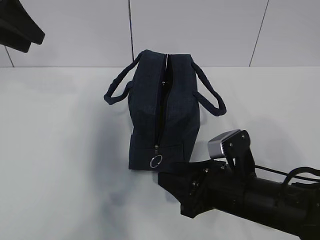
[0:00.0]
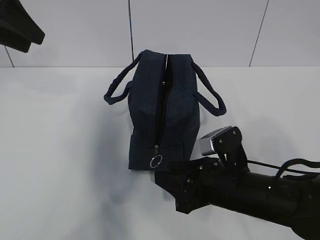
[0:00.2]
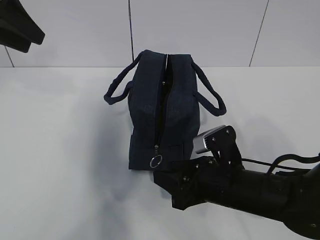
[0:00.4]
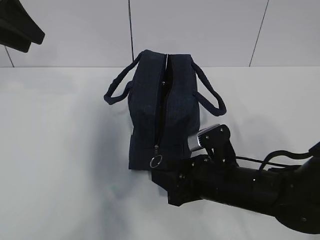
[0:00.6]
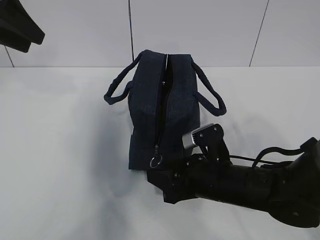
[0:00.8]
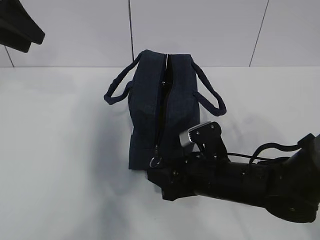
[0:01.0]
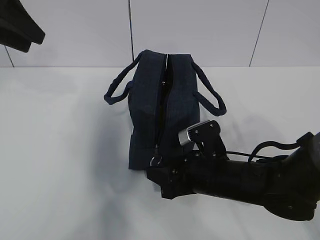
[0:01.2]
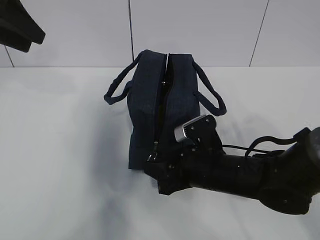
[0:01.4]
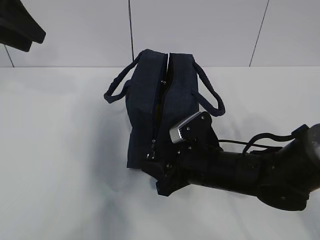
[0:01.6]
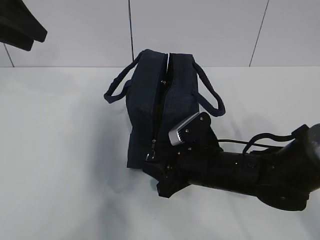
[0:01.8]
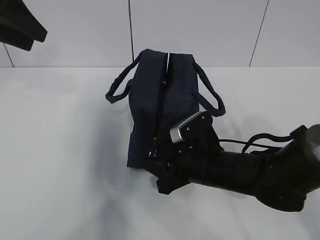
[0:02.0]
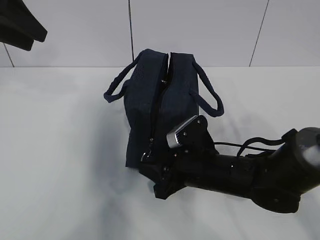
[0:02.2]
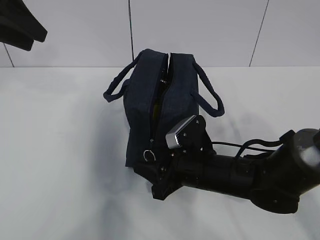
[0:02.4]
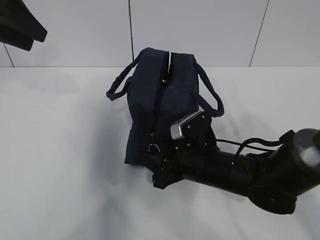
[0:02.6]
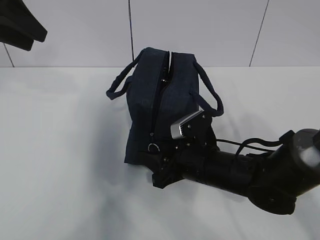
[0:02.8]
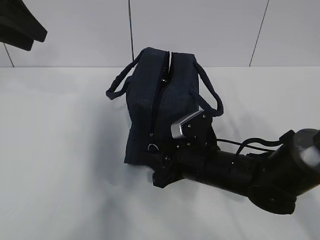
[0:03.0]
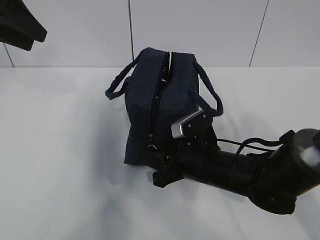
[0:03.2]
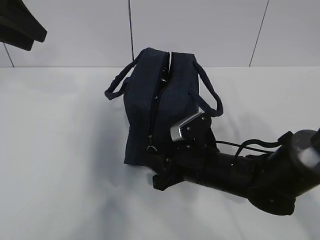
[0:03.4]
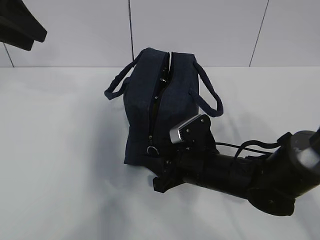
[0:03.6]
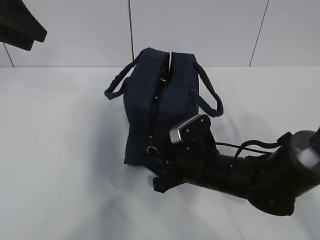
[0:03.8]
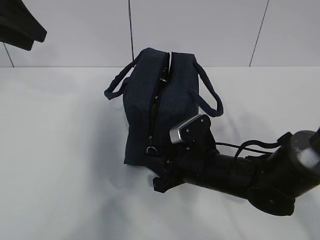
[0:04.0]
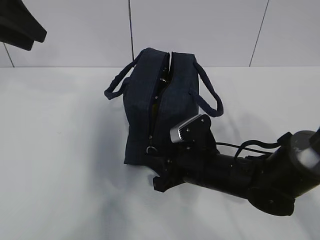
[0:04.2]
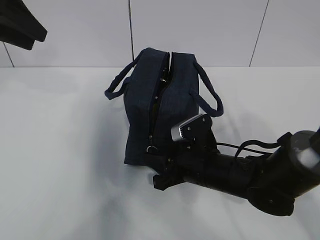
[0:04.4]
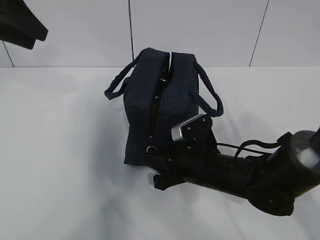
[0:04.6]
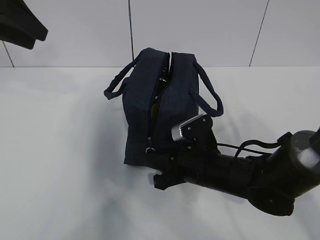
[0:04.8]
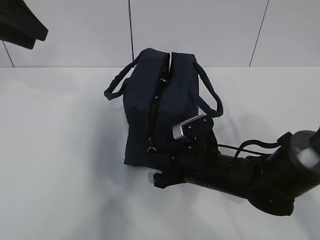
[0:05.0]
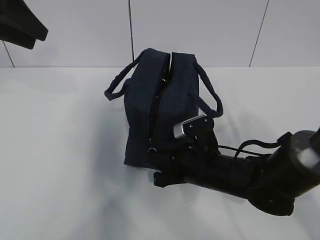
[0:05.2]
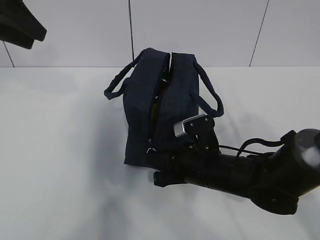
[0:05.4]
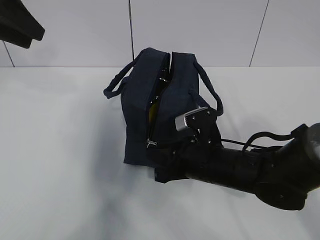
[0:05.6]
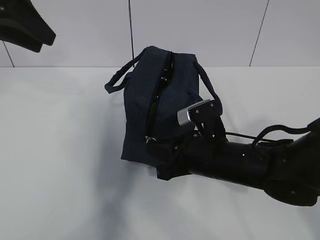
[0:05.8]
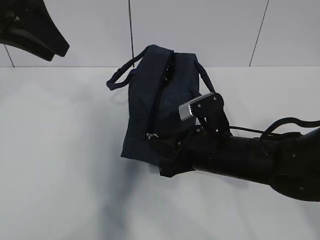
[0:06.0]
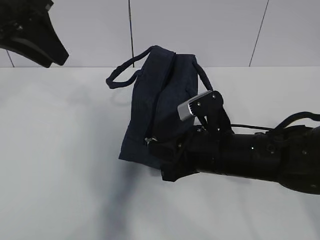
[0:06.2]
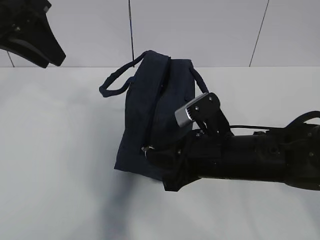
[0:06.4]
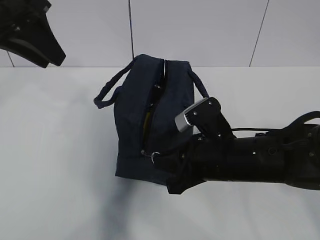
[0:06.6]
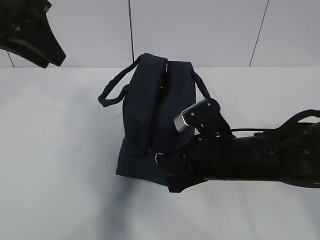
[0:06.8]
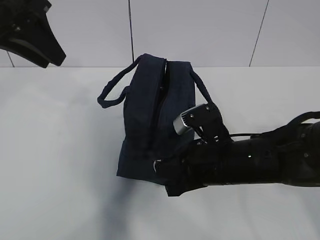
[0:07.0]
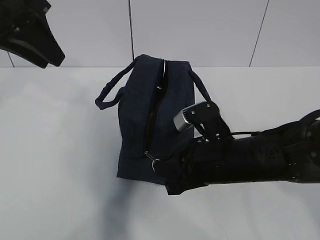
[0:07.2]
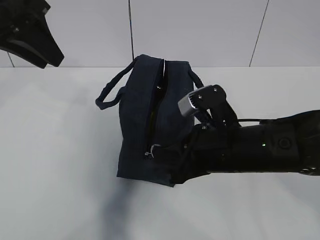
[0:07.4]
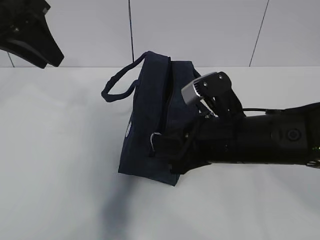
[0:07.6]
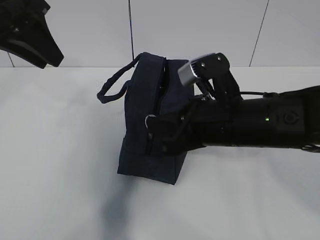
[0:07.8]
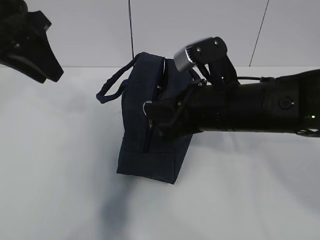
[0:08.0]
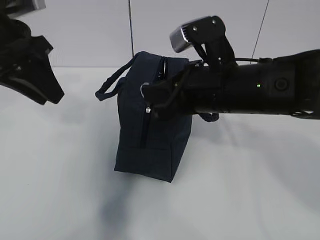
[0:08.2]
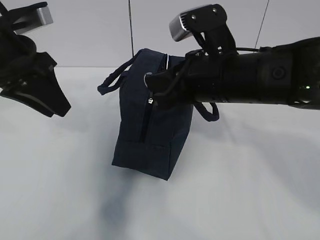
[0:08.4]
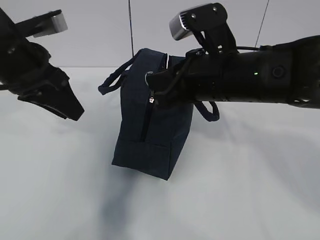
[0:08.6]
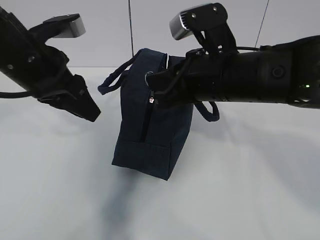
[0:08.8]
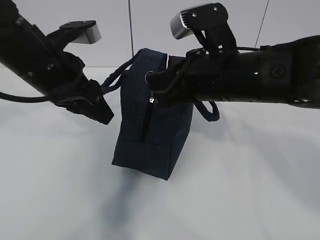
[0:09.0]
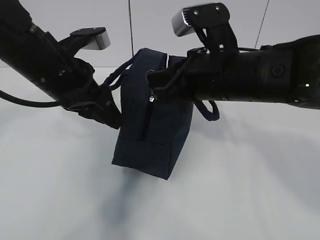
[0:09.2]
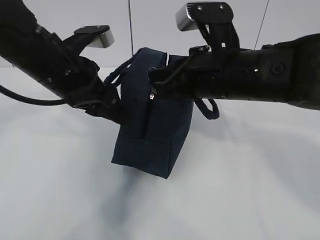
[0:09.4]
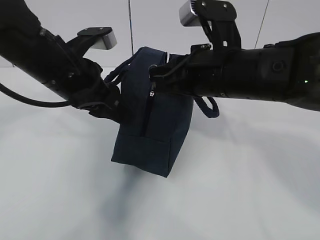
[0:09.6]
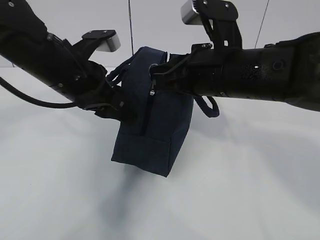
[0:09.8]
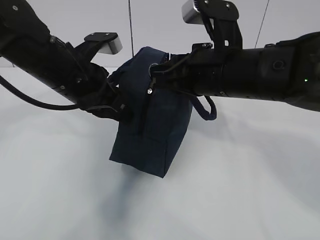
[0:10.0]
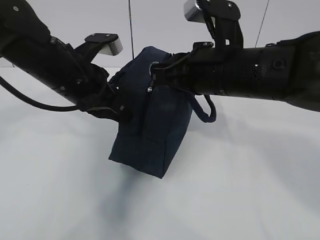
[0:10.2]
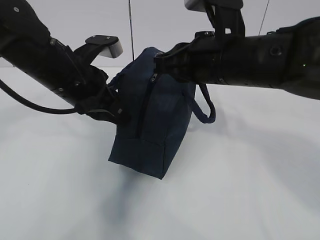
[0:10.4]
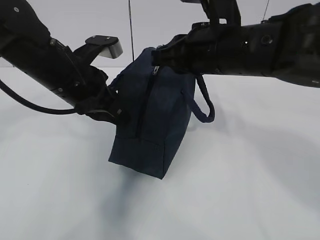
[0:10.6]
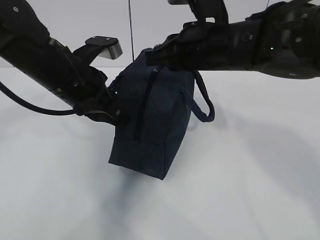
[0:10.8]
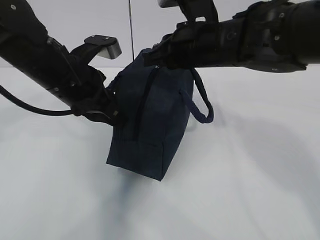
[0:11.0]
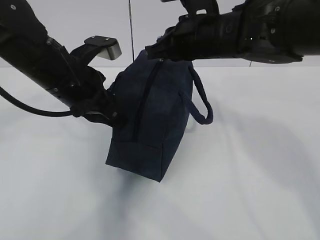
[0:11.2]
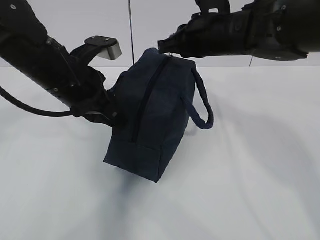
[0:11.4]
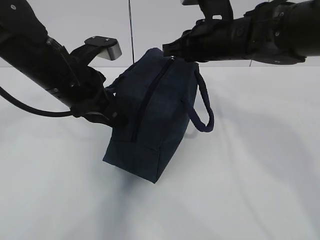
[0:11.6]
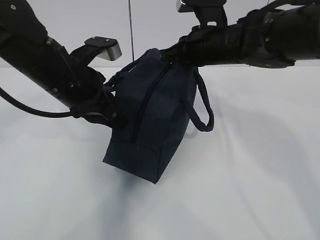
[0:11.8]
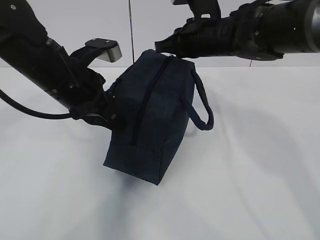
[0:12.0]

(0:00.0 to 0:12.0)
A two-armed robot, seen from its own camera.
Step, 0:02.8 - 0:07.8: Pull the zipper with your right hand.
Step, 0:08.0 - 0:11.0: Grab the lunch bag with your left hand.
0:00.0 - 0:01.6: The right gripper heads forward, covering approximately 5 cm.
0:01.6 - 0:03.0: There are only small adjustments of the grippers.
0:03.0 - 0:04.4: Both grippers stay about where they are.
0:04.4 - 0:06.0: The left gripper moves about 5 cm; the right gripper shifts approximately 5 cm upward, and closes.
0:06.0 - 0:07.6: The right gripper moves upward, approximately 5 cm.
0:07.6 - 0:09.0: The right gripper heads upward, covering approximately 5 cm. Meanwhile the left gripper travels downward and to the right by approximately 10 cm.
0:09.0 - 0:10.4: The left gripper closes.
0:10.4 - 0:12.0: The right gripper shifts approximately 10 cm forward.

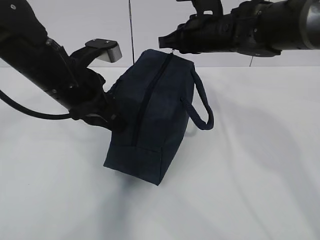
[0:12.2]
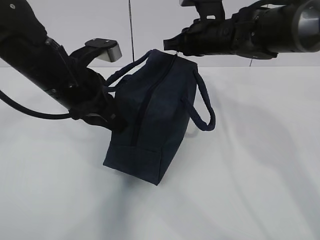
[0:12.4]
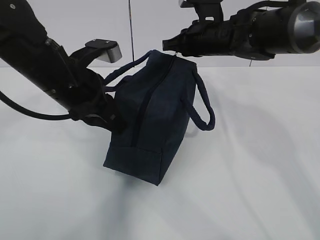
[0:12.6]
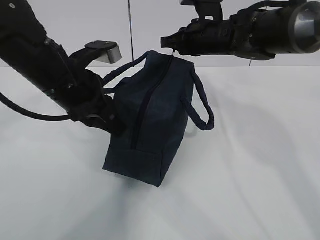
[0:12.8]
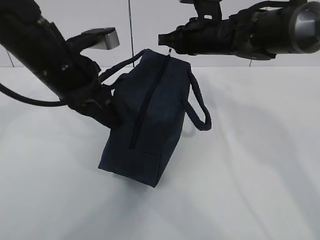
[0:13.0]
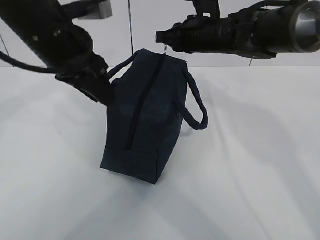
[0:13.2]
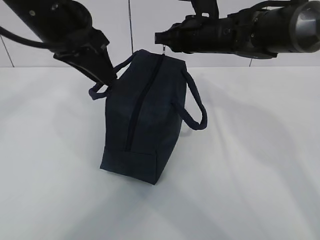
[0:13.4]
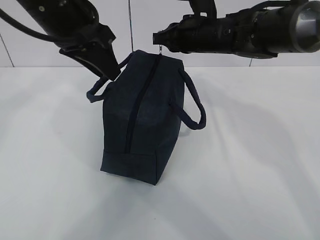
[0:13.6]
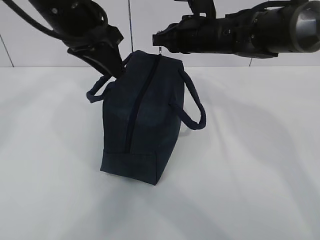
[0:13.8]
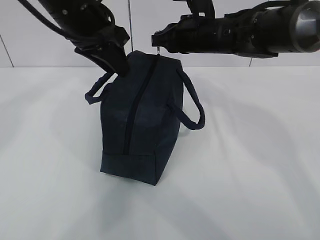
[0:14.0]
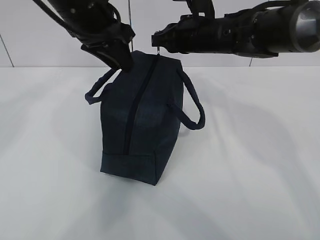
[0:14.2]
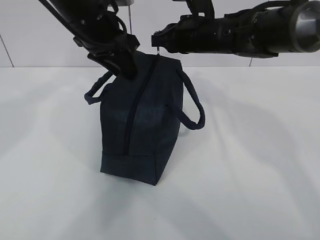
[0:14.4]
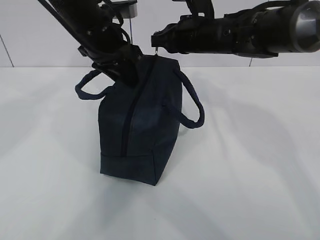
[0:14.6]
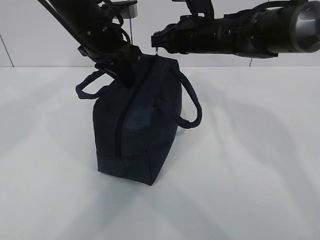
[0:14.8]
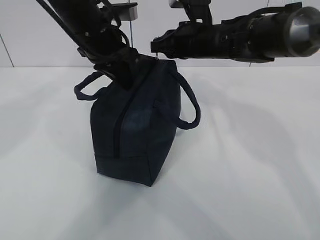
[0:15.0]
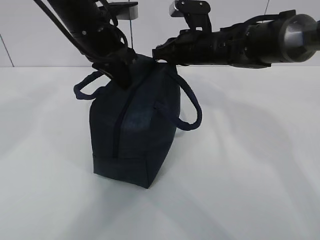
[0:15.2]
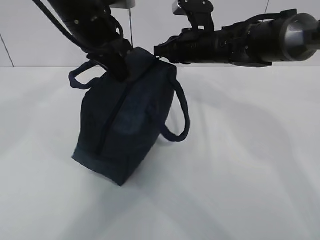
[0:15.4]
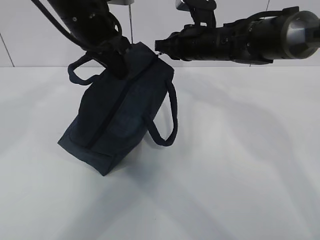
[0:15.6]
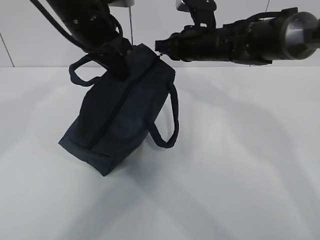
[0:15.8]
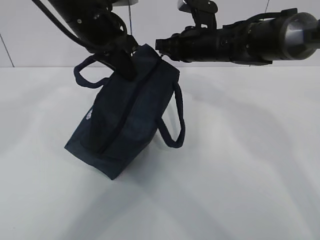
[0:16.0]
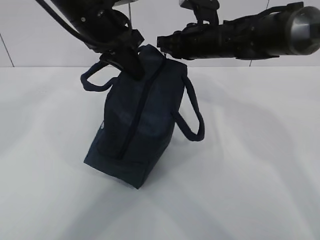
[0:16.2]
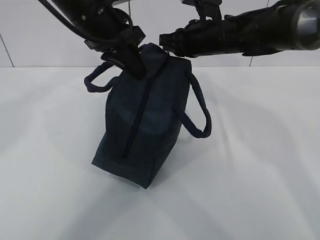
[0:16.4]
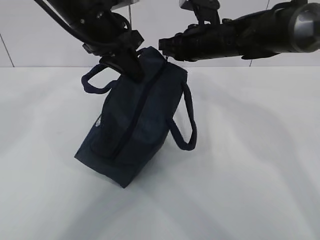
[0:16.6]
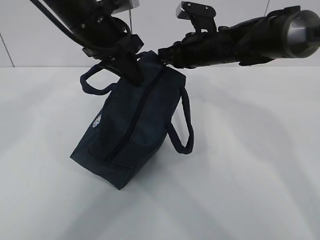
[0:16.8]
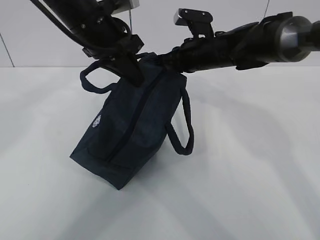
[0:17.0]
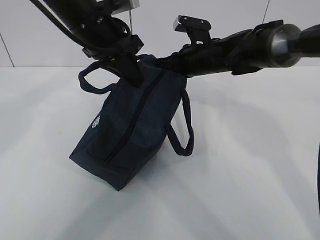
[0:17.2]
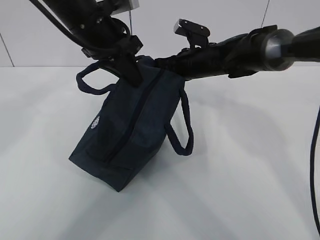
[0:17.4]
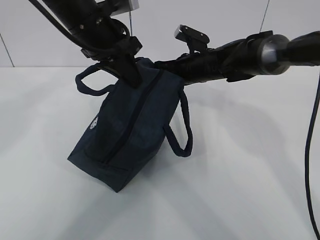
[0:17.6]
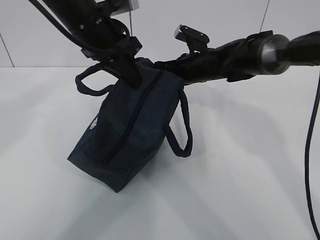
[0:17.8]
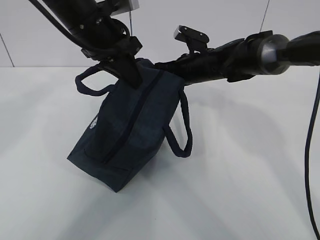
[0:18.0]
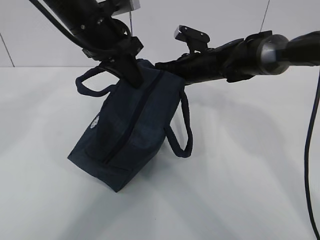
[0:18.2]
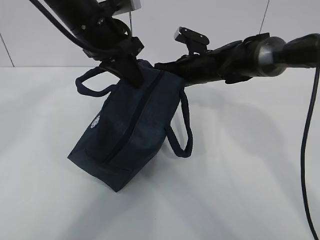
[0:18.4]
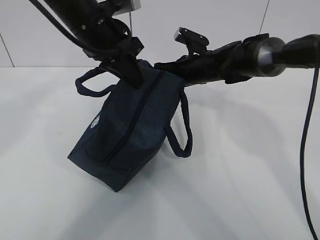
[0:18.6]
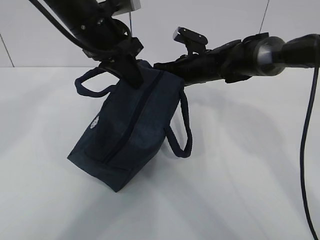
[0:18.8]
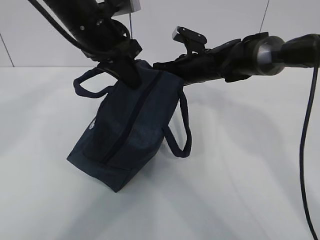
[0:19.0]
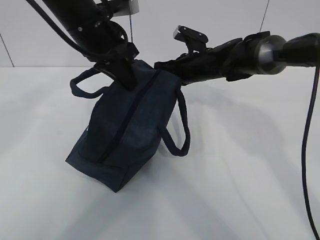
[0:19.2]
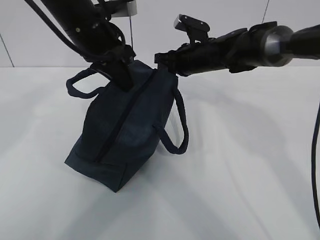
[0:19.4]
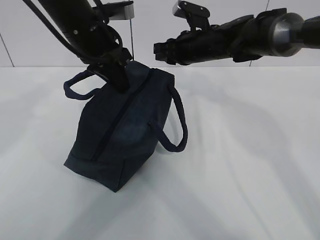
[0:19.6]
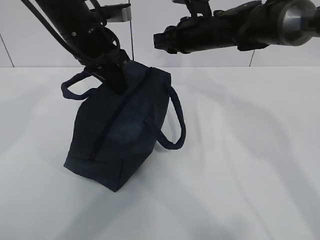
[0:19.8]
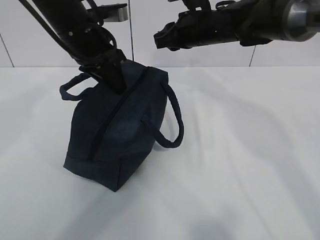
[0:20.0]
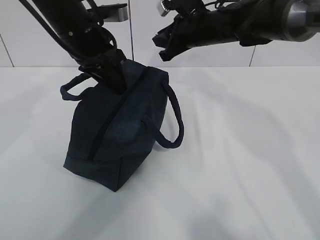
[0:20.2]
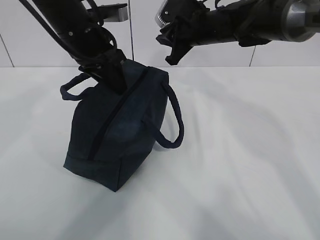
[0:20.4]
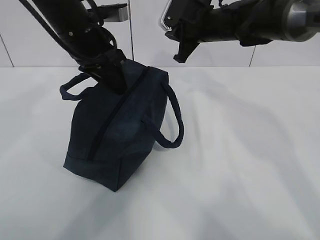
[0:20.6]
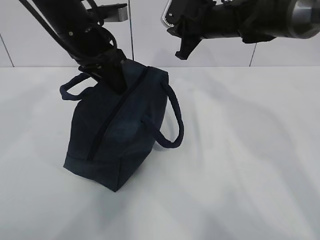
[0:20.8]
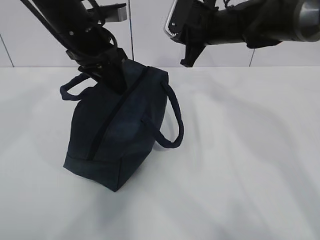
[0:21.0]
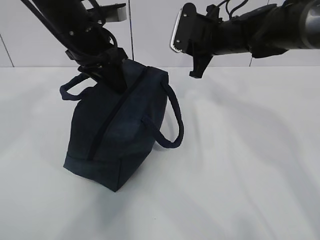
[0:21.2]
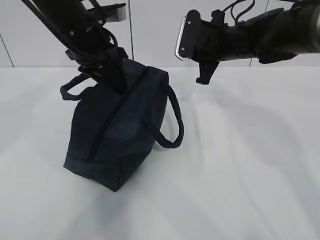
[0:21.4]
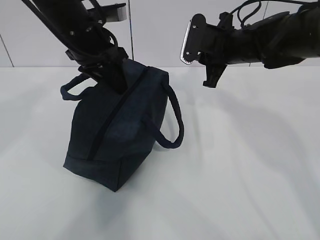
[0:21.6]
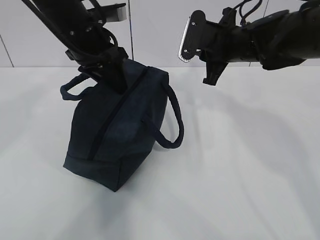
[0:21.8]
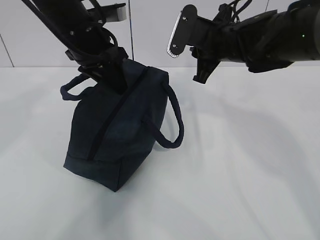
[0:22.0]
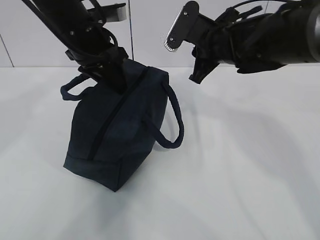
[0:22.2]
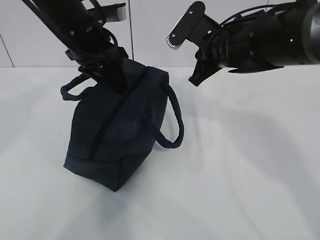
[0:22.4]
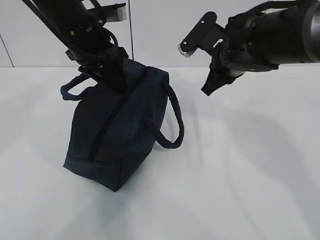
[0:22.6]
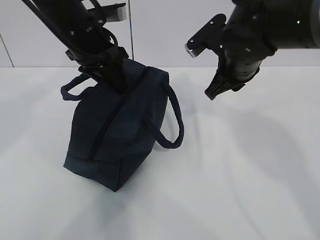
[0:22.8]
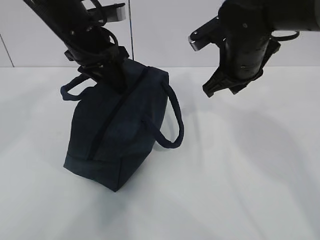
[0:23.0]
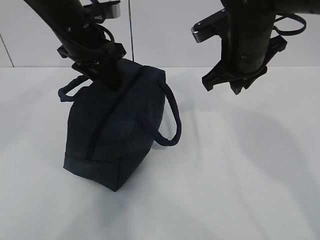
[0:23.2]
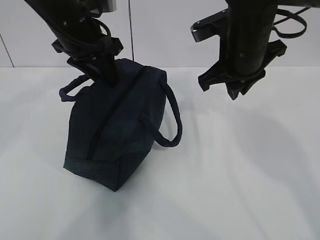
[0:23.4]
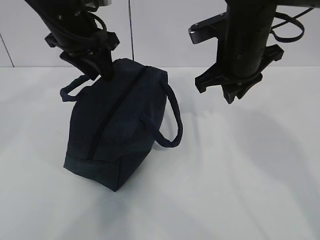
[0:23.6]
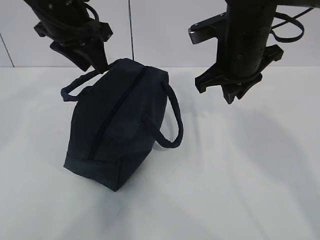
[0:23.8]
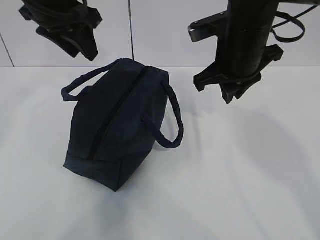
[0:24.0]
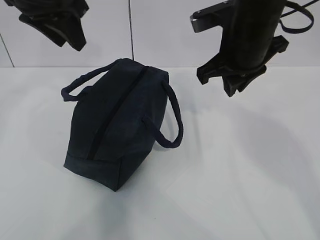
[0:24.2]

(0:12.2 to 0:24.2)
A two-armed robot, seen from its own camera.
0:12.2 - 0:13.8: The left gripper goes roughly 10 cm upward, and opens.
0:13.8 - 0:15.2: The left gripper shifts by about 5 cm, and closes its fingers.
0:15.2 - 0:16.6: The grippers move only a little.
0:16.6 - 0:18.2: The right gripper is displaced downward by approximately 5 cm.
0:18.2 - 0:19.8: The right gripper goes about 10 cm upward.
0:19.8 - 0:21.2: The left gripper opens.
0:21.2 - 0:22.6: The right gripper shifts approximately 5 cm backward.
0:22.6 - 0:24.2: The grippers both shift upward by some 10 cm.
